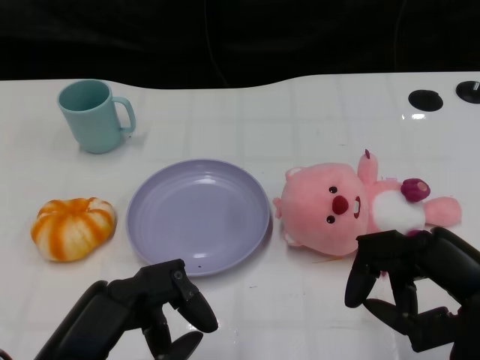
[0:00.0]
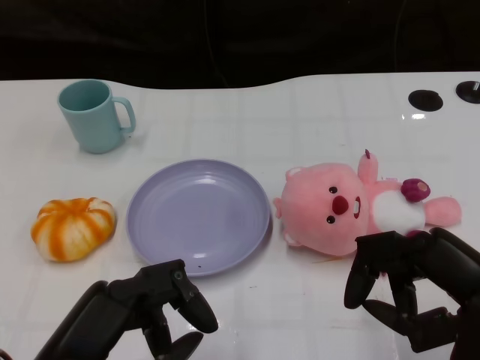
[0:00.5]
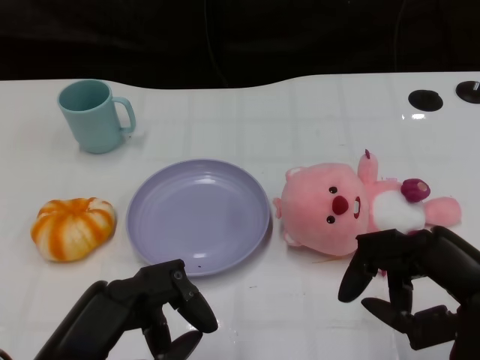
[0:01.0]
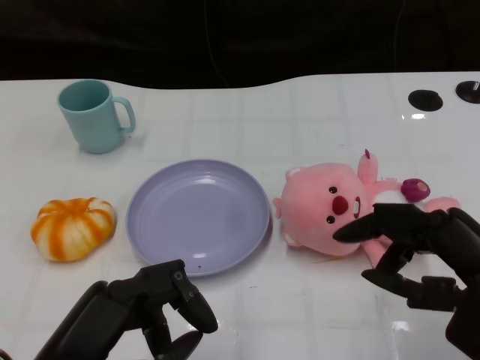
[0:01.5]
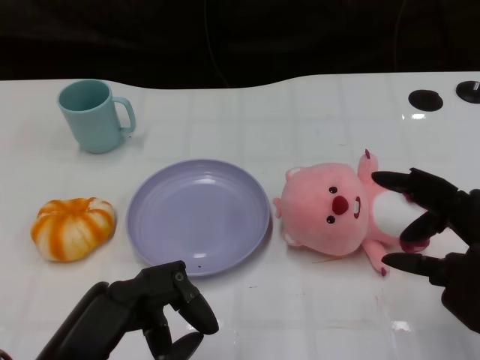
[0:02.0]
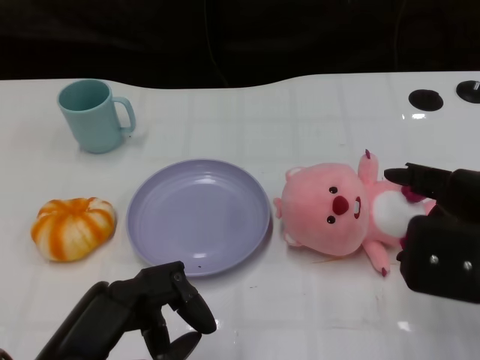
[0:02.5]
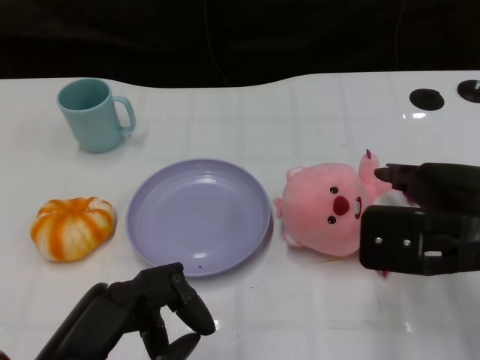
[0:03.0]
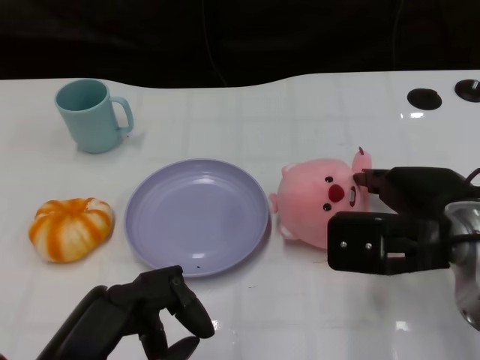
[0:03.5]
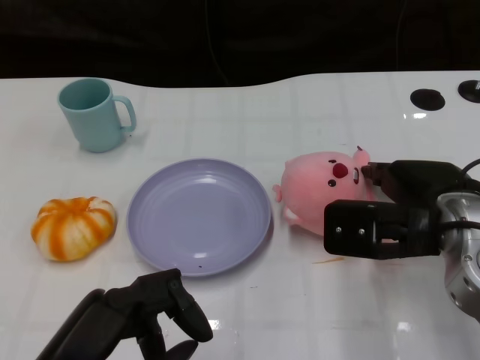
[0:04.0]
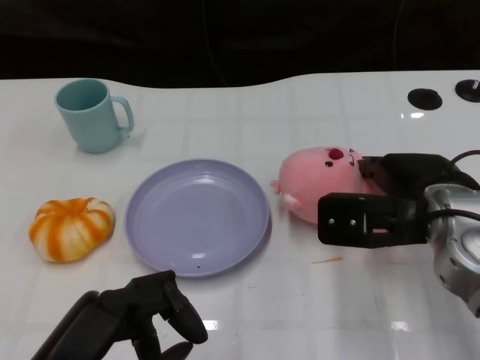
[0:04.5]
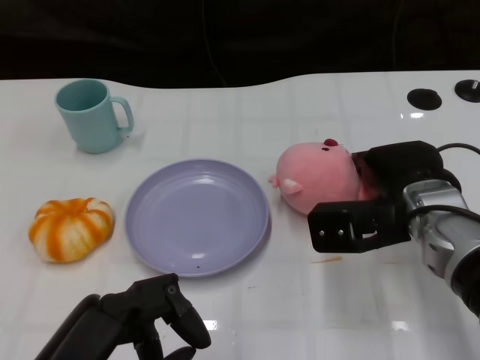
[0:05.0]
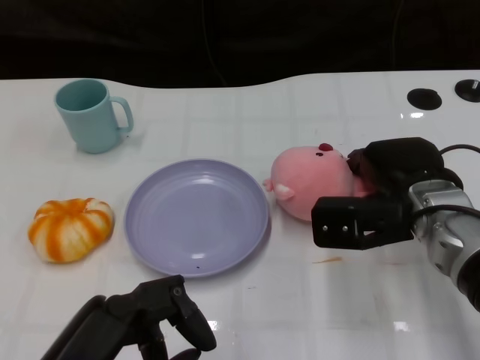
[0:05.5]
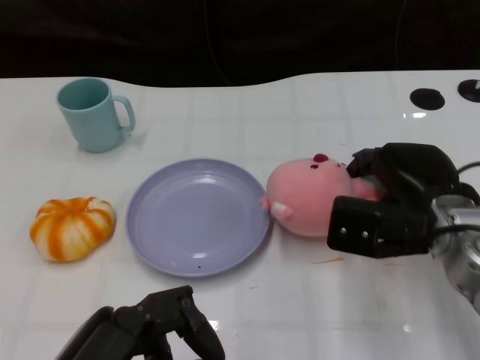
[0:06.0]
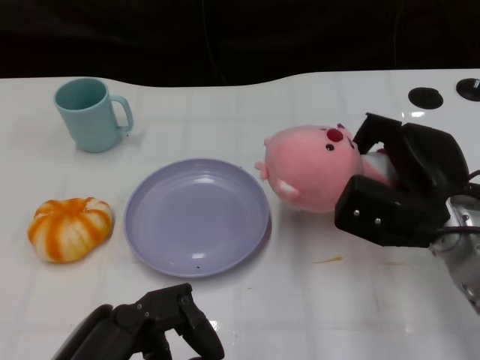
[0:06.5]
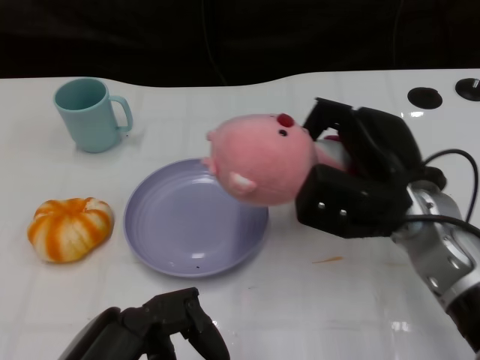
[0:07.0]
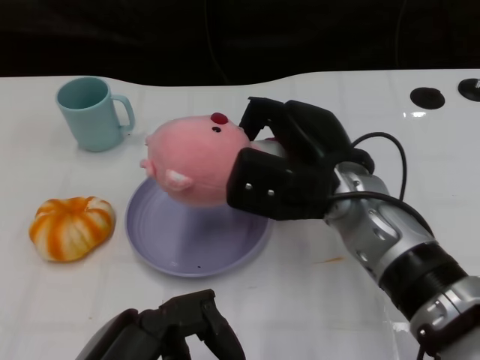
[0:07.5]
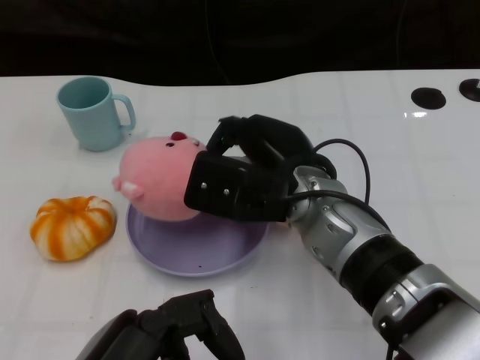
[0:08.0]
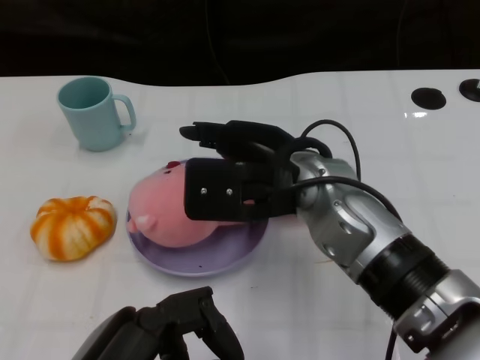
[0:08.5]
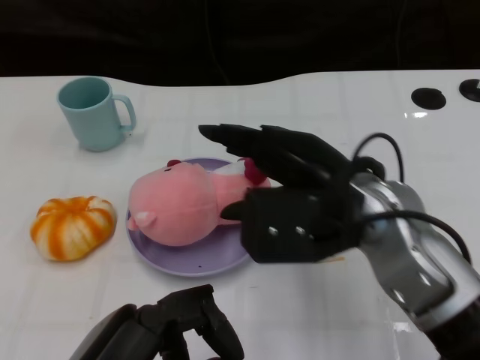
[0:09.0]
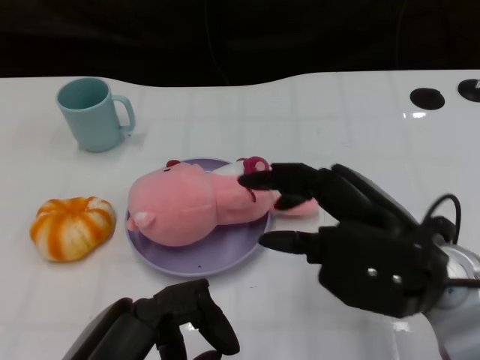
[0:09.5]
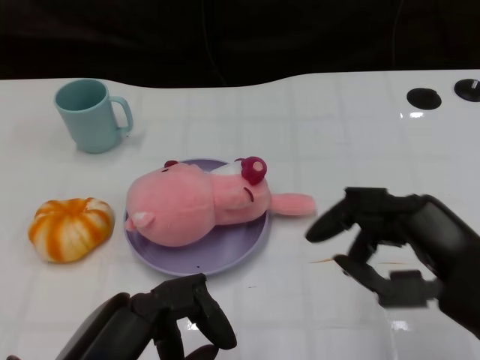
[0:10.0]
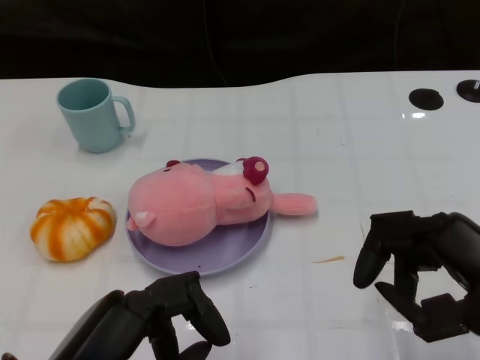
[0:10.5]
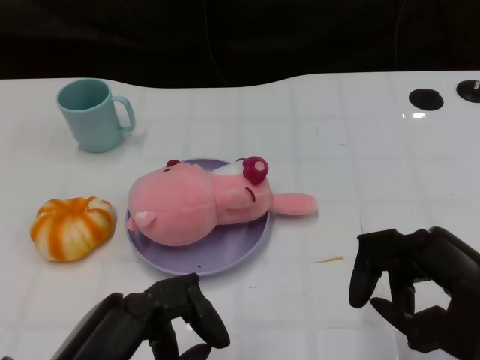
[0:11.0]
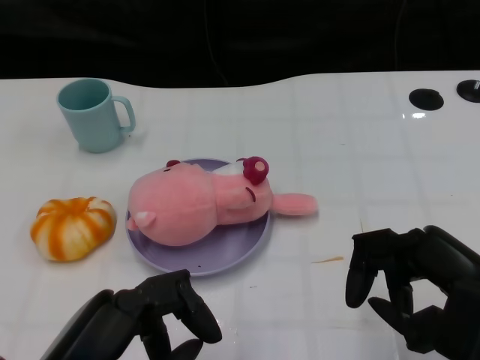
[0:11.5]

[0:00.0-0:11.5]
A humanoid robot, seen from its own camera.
Task of the whole recording: Pick up the doll on the other side of the plate and place it into the plate.
Step, 1.0 to 6.5 s: Grasp the pink doll with the right gripper.
Step, 7.0 to 9.5 s: Place the pink doll into the plate with the right gripper.
2.0 to 4.0 s: The right hand moves forward and to the left, roughly 10 cm.
6.0 to 7.5 s: The right hand is displaced to the left by some 10 cm.
7.5 to 9.5 s: The right hand shifts some 10 cm backward and to the right.
9.5 to 11.5 s: The right hand is displaced to the right and backward by roughly 10 cm.

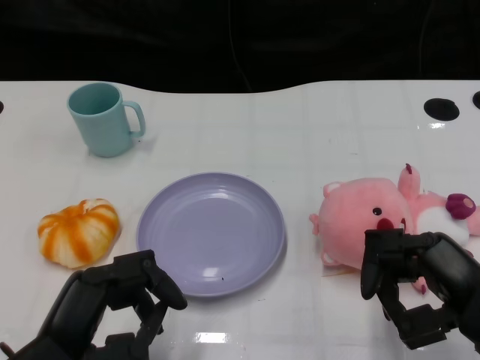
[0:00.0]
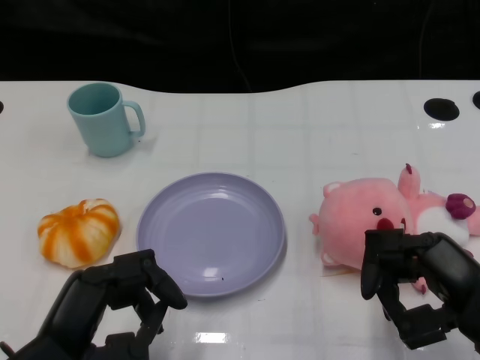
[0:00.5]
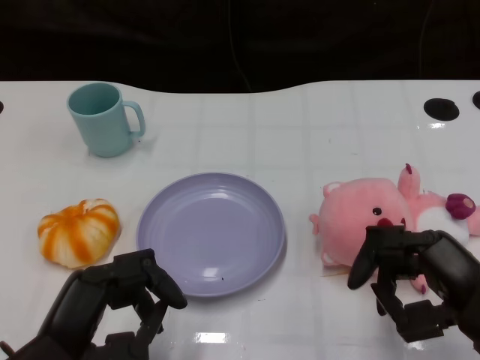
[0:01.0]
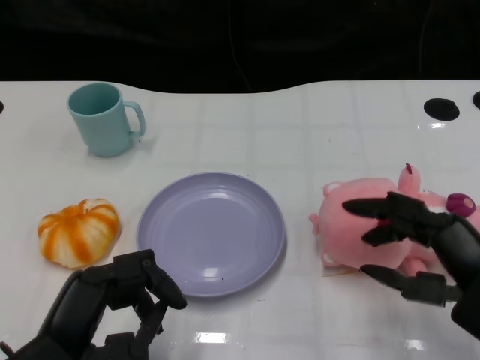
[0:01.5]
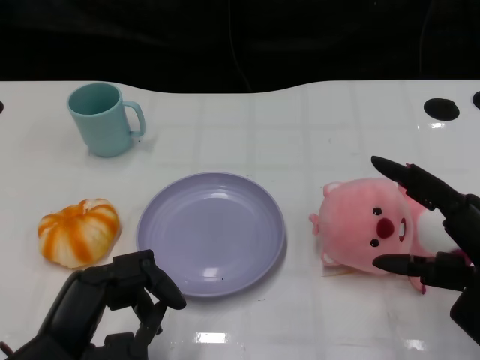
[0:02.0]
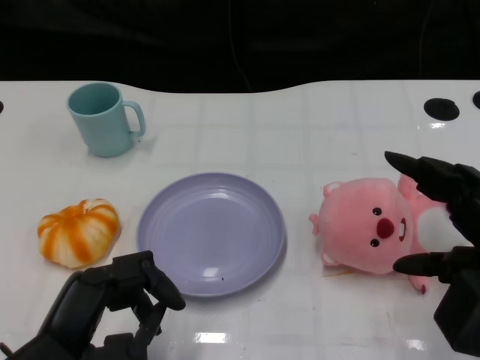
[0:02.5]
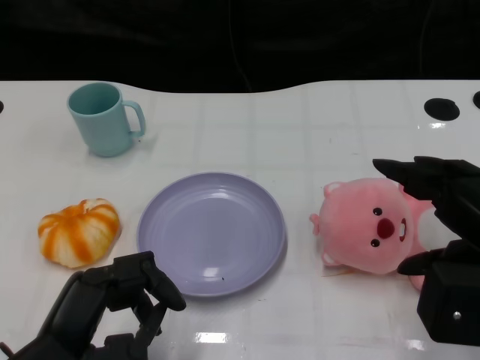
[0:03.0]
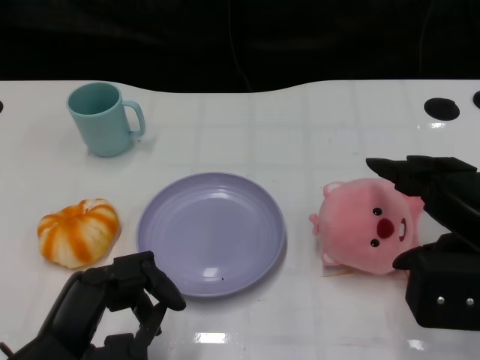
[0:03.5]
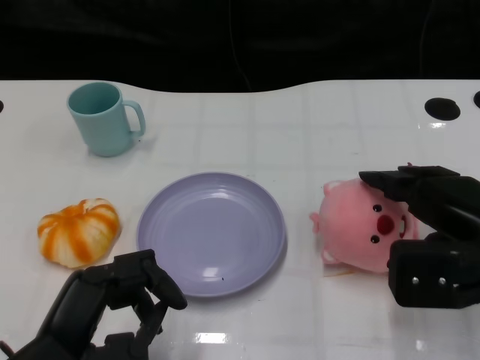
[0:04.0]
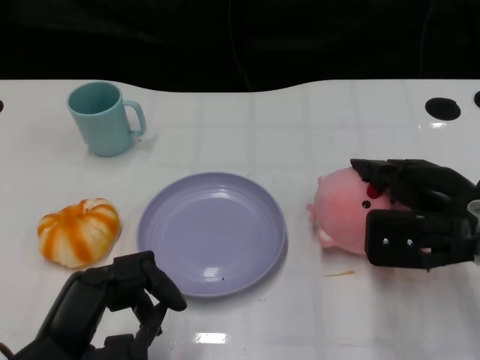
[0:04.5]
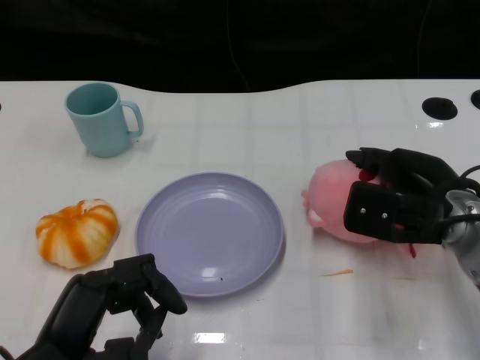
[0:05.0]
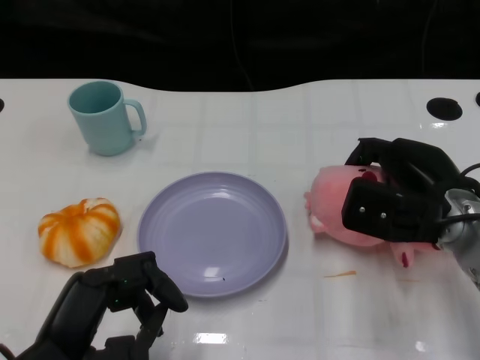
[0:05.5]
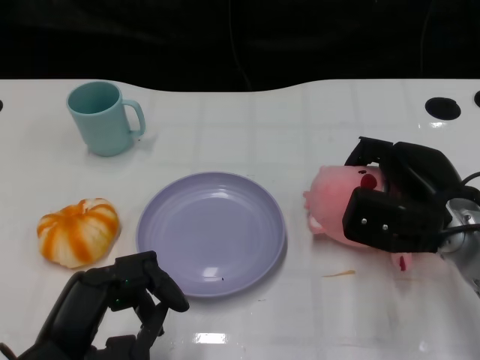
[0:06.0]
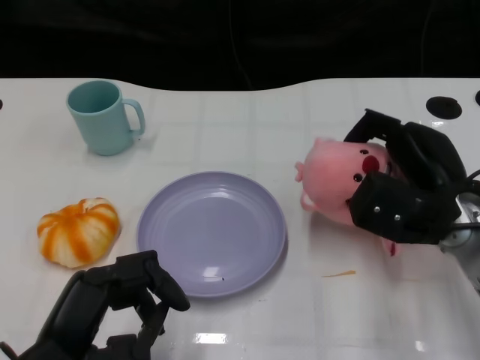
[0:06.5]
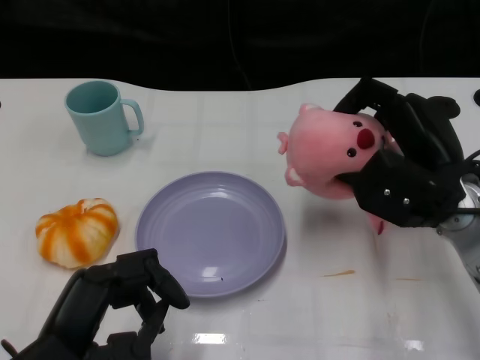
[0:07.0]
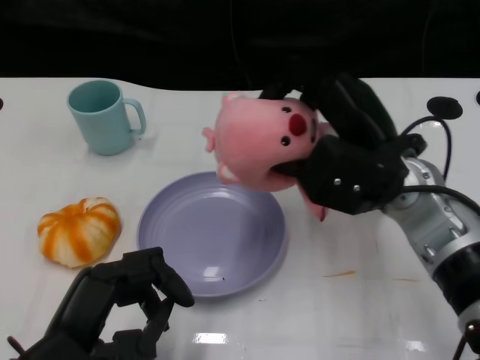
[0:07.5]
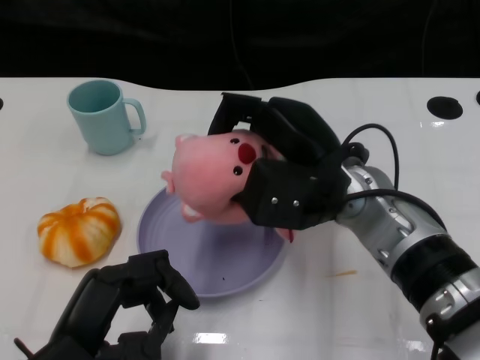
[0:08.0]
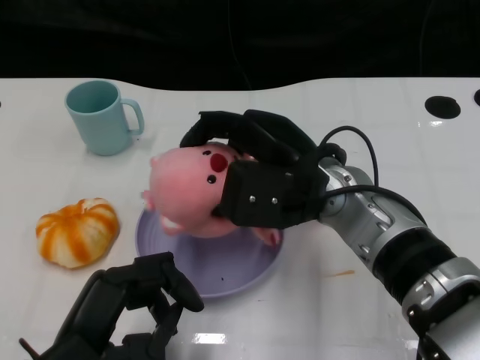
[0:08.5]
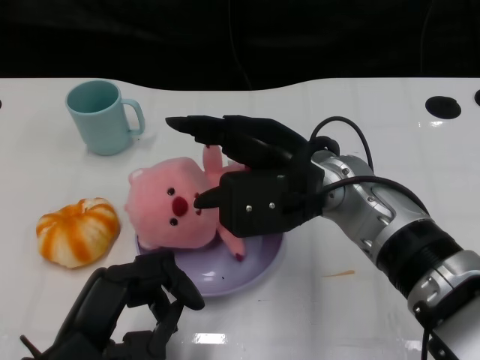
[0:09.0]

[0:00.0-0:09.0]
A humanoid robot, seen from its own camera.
Task of the whole recording: Pick up the doll on the other side of the plate and place it into the plate.
Step, 1.0 to 7.5 s: Grasp the pink doll with the right gripper.
2.0 to 4.5 s: The right hand shifts roughly 10 cm forward.
7.0 to 9.0 s: The right hand goes roughly 10 cm to the left.

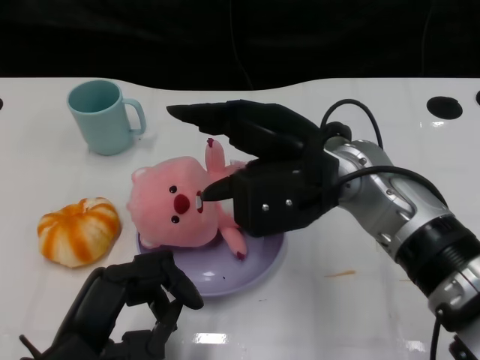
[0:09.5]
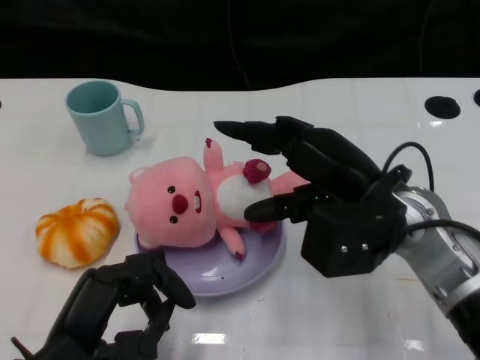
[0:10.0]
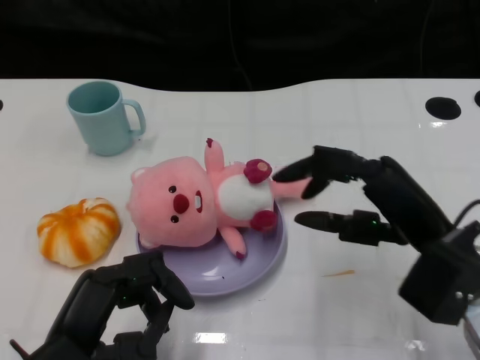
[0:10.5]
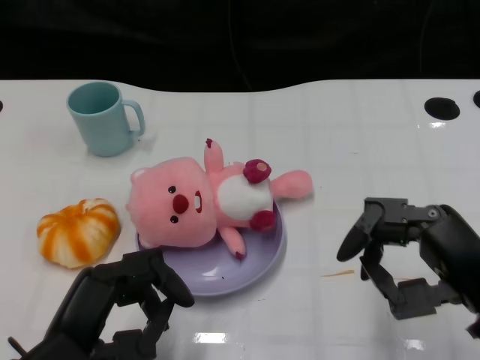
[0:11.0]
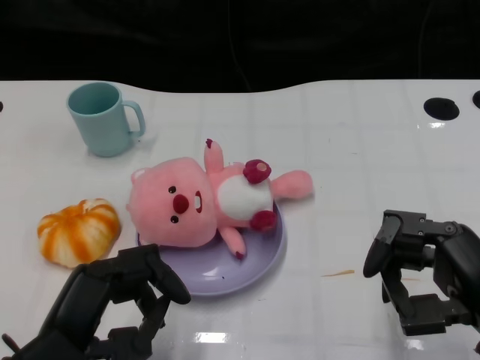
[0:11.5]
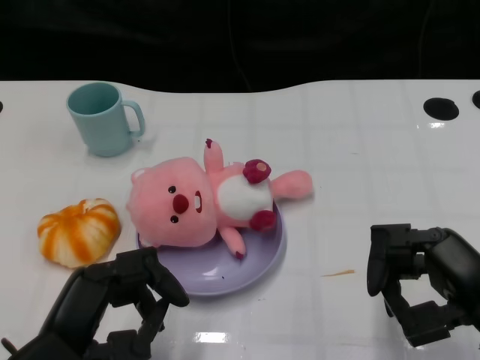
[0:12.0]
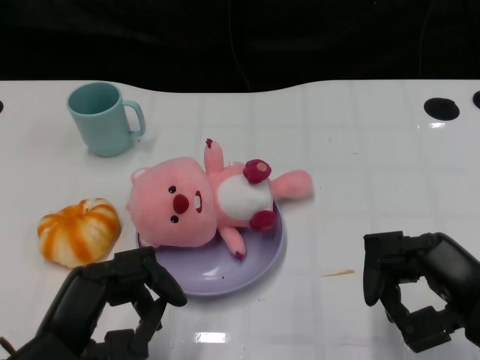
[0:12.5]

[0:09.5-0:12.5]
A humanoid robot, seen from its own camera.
Task of the whole recording: Pick up the doll on the other side of the plate and place it into the plate.
9.5 to 11.0 s: The right hand goes roughly 20 cm to the right and backward.
11.0 to 12.5 s: The hands stay close to where they were, moving slightly.

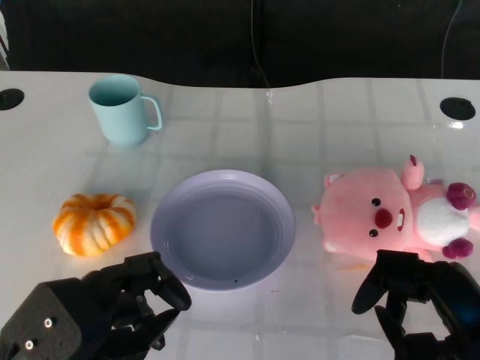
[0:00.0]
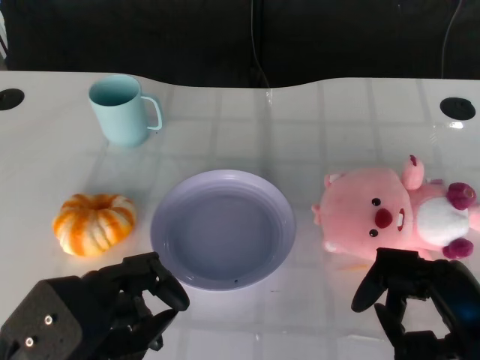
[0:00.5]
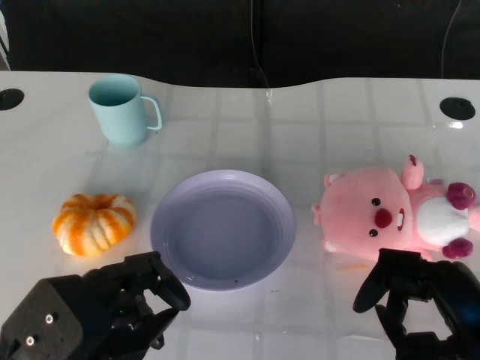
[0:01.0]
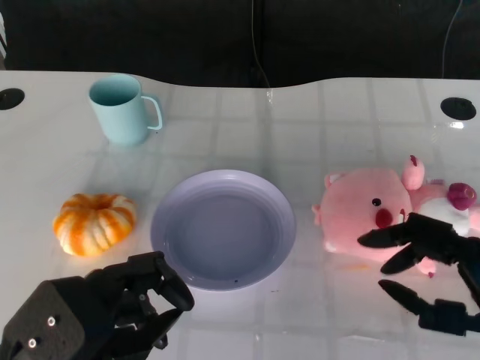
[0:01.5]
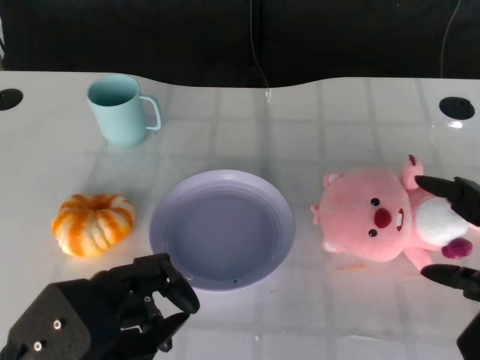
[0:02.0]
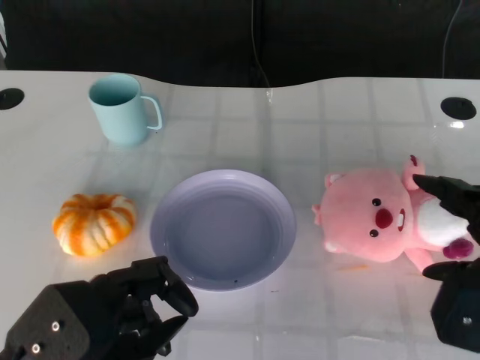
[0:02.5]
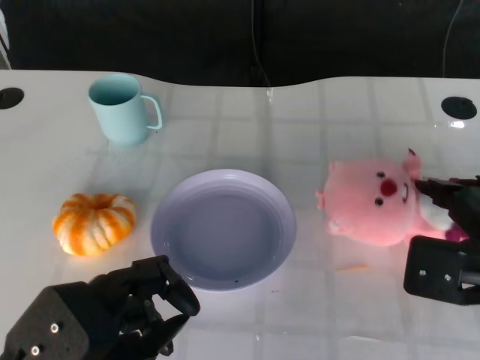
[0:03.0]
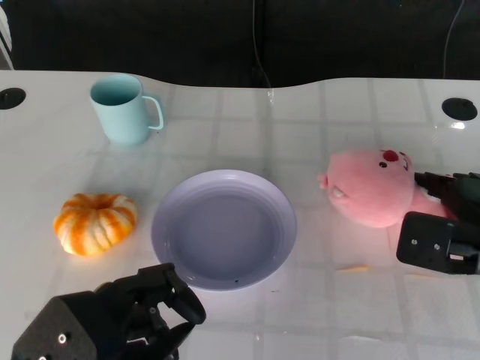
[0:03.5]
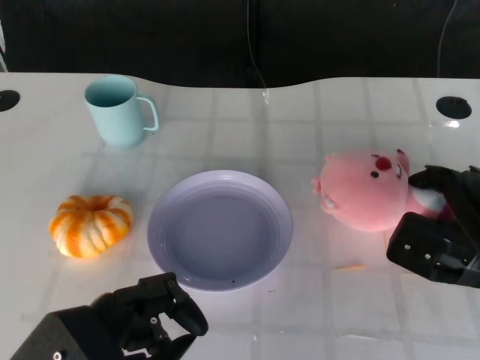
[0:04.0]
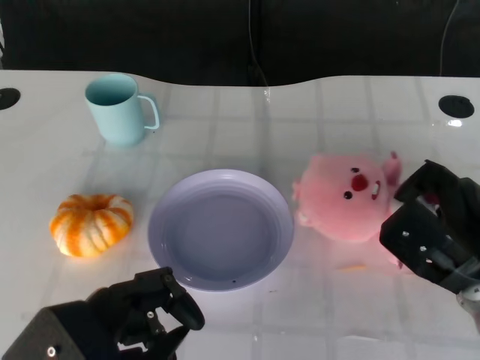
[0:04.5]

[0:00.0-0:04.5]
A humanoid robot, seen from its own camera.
Task of the whole recording: Pick up the doll on the other side of the plate and place it into the plate.
2.0 to 4.5 s: The right hand goes some 15 cm forward and downward.
